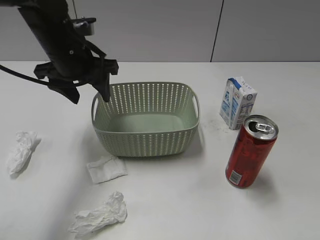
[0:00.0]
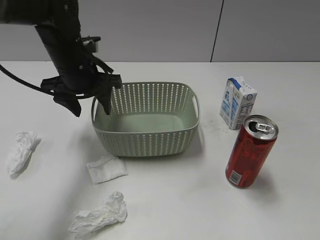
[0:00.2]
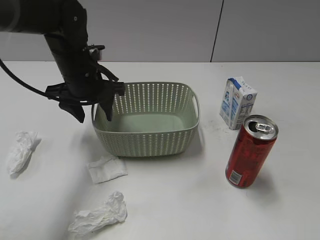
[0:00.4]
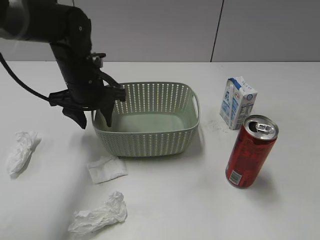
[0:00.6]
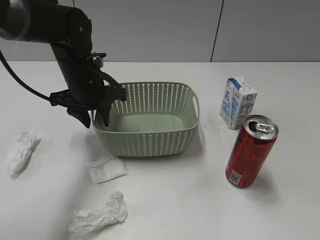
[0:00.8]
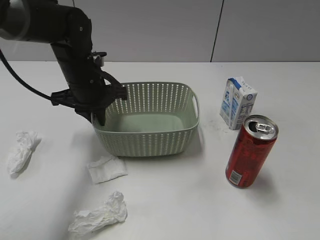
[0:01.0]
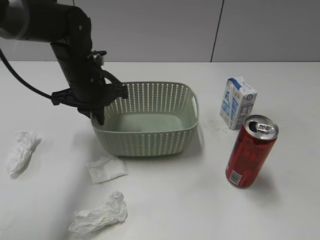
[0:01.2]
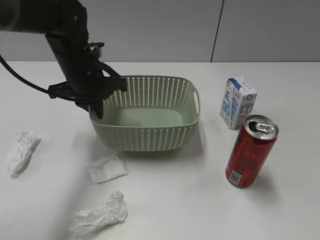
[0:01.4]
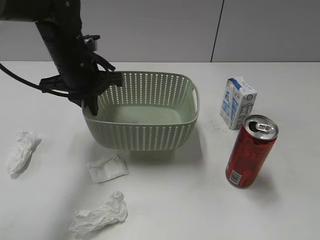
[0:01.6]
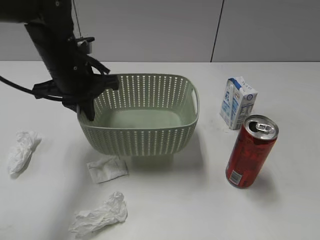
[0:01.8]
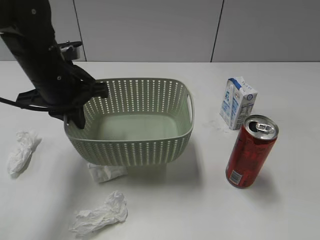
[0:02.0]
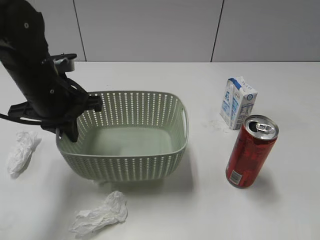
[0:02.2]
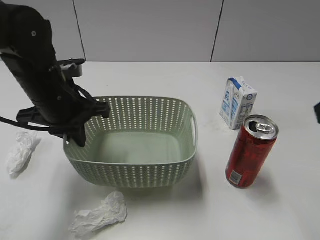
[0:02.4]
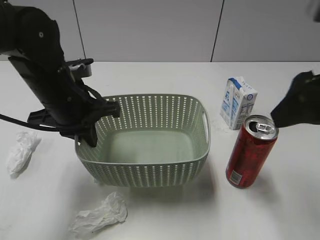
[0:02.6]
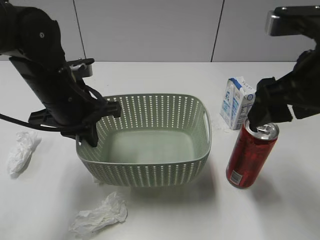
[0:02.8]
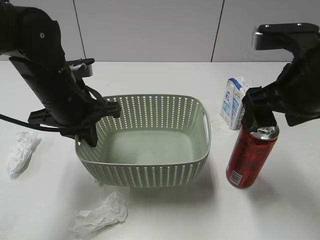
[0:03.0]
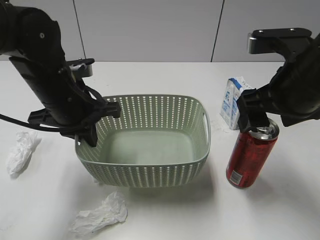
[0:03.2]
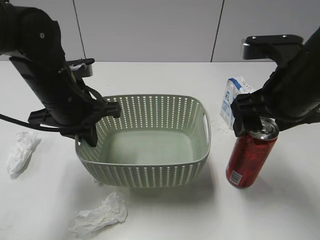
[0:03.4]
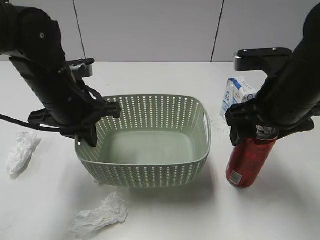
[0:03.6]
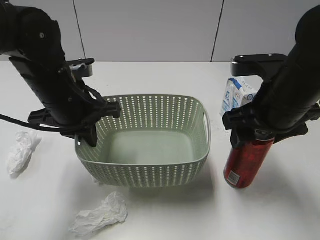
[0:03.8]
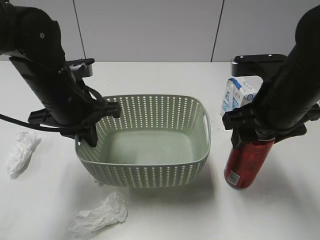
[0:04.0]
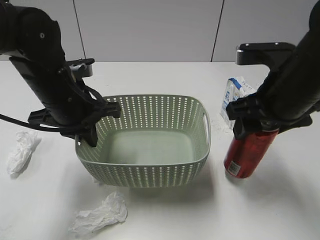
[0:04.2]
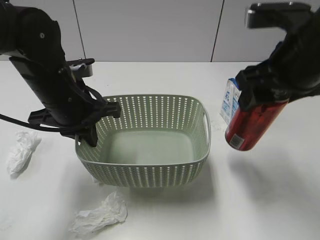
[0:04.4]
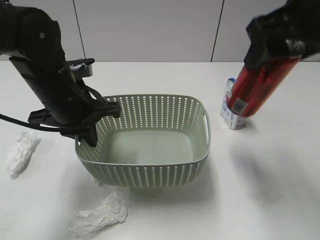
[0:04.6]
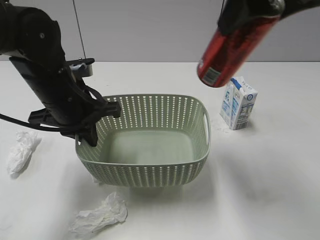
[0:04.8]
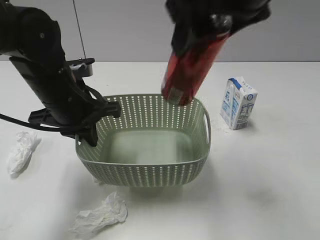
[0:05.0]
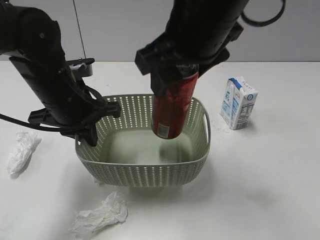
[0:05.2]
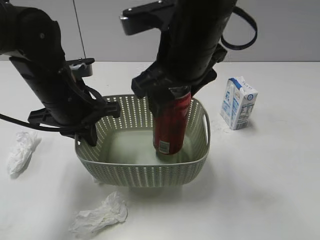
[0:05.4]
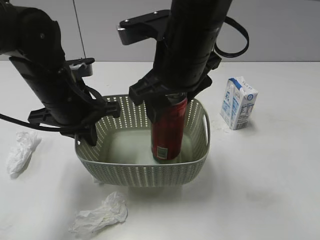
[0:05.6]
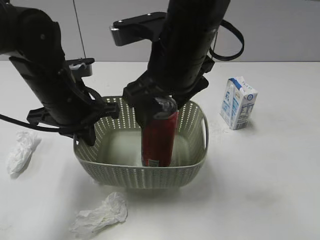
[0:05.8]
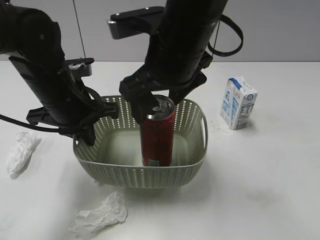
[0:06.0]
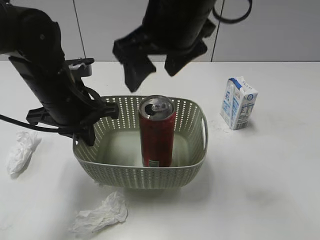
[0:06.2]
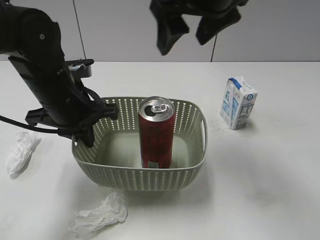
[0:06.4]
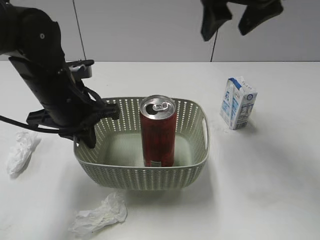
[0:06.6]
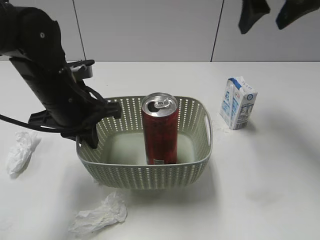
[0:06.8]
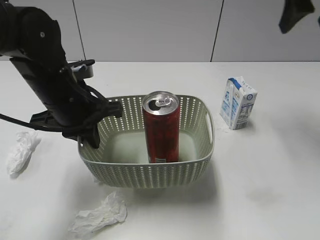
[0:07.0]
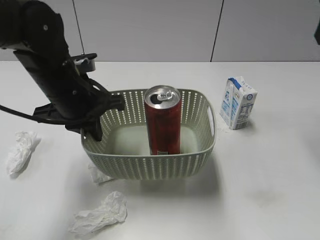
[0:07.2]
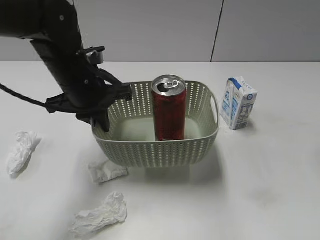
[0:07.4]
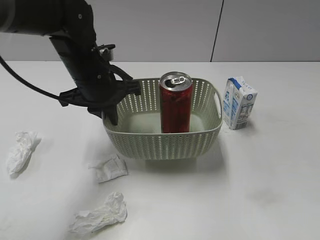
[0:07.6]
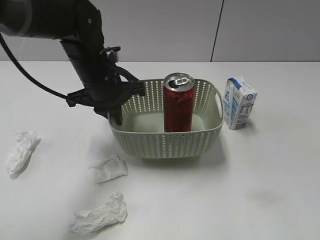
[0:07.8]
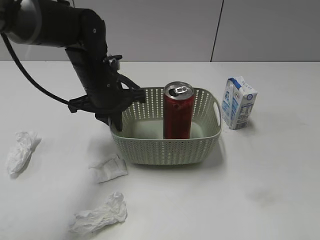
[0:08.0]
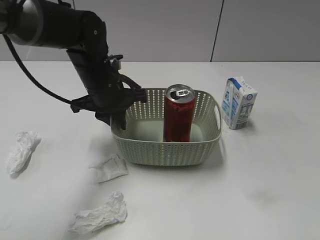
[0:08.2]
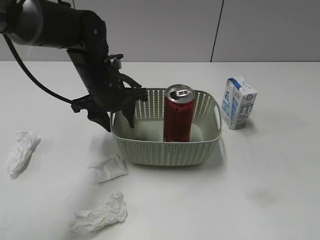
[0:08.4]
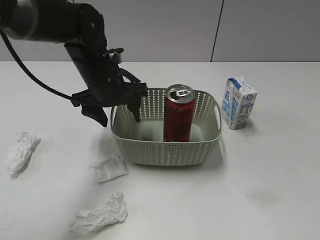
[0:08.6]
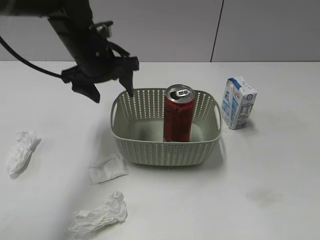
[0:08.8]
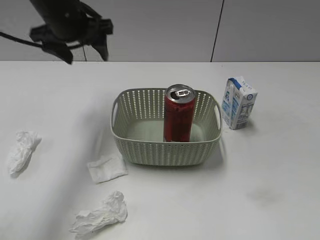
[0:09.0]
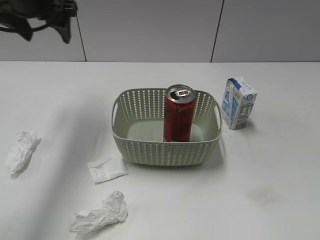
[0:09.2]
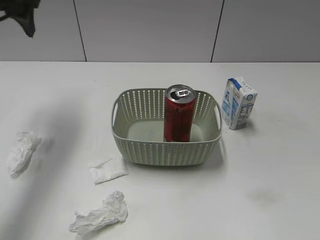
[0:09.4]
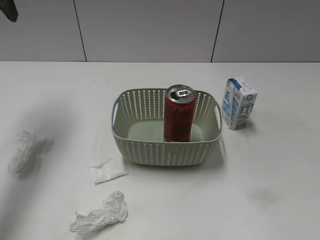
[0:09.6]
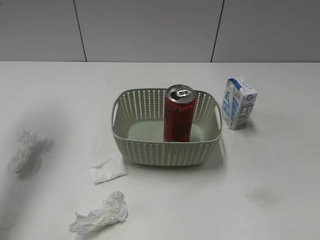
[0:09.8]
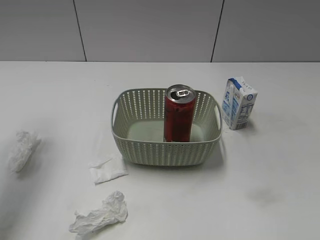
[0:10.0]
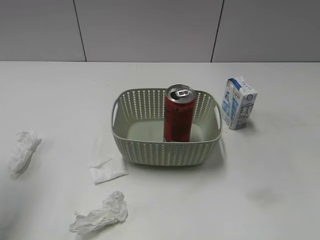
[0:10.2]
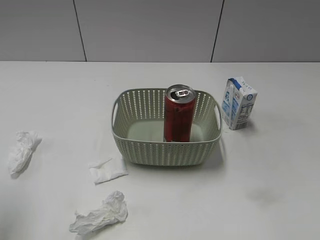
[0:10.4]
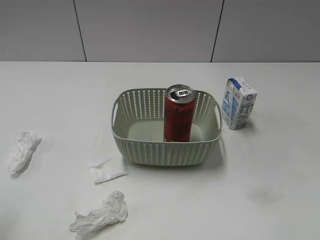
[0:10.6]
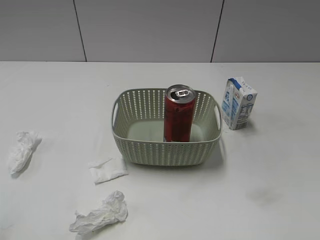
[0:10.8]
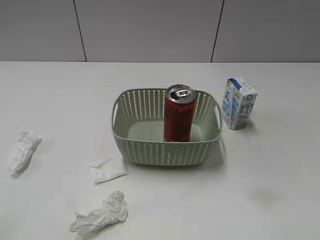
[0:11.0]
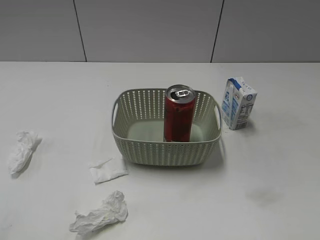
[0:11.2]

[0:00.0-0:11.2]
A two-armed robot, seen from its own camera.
Step, 0:00.0 to 0:01.2: Grasp the basket with left gripper.
Step, 0:01.4 to 0:02.2: Lift the basket with left gripper.
Step, 0:02.4 to 0:03.8: Grasp the cola can with right gripper.
Step, 0:04.0 to 0:06.2: Place the cola can in the basket with right gripper.
Step, 0:06.4 to 0:08.6: Place the basket on the table with left gripper.
0:00.0 to 0:01.6: The left gripper closes.
0:01.6 to 0:03.2: The left gripper goes about 10 cm backward. The right gripper shifts approximately 25 cm forward and to the left, and opens.
0:03.2 to 0:04.8: The right gripper goes some 15 cm upward, and closes up.
0:04.8 to 0:06.4: The right gripper heads forward and to the left, covering approximately 10 cm, and opens.
0:06.4 to 0:08.0: The right gripper is displaced to the right and backward by some 30 cm. Meanwhile the left gripper is displaced forward by roughly 5 cm.
0:08.0 to 0:09.6: The left gripper moves upward and to the left, roughly 30 cm, and opens its fingers; the right gripper moves backward and downward, approximately 10 cm.
0:09.6 to 0:11.2: The left gripper goes some 35 cm backward.

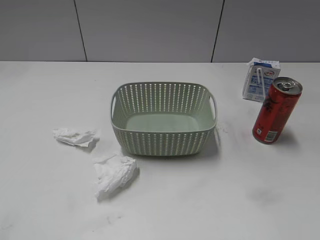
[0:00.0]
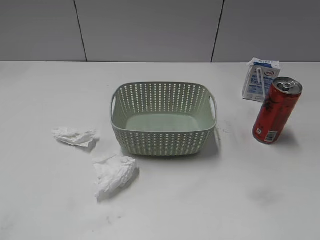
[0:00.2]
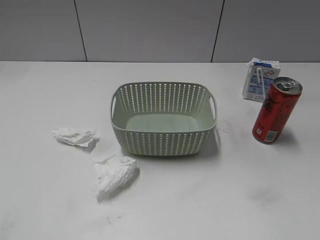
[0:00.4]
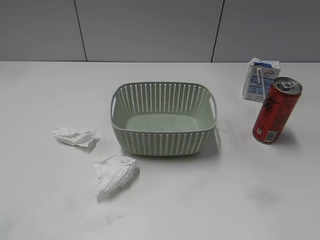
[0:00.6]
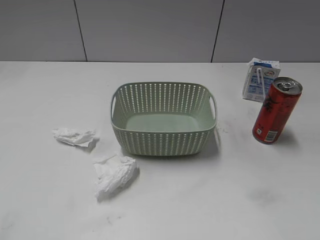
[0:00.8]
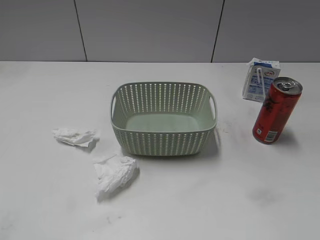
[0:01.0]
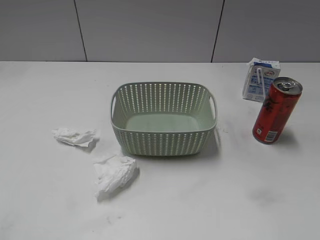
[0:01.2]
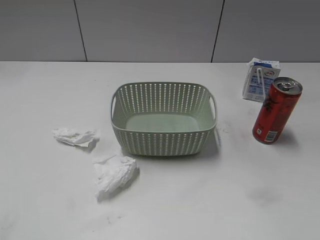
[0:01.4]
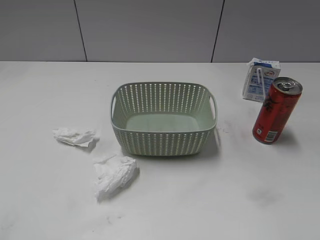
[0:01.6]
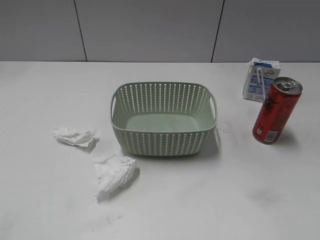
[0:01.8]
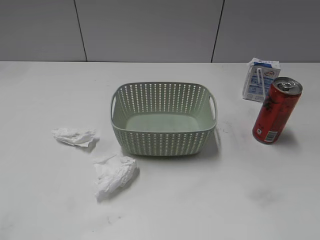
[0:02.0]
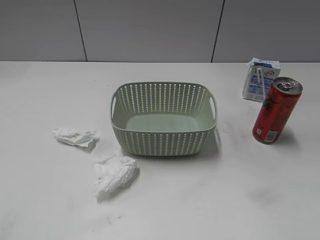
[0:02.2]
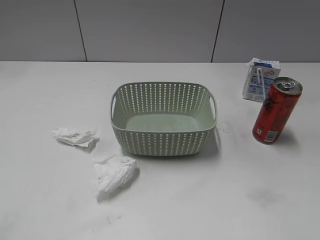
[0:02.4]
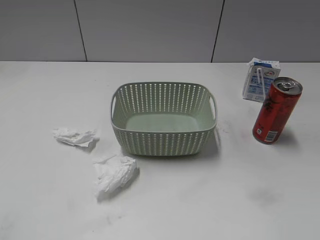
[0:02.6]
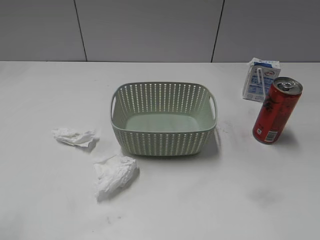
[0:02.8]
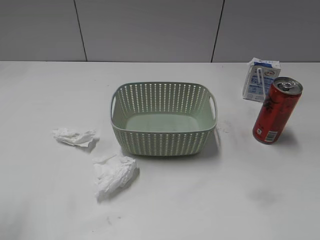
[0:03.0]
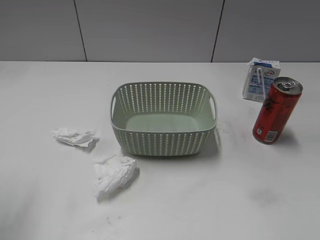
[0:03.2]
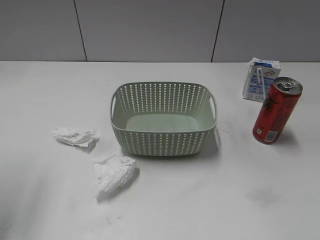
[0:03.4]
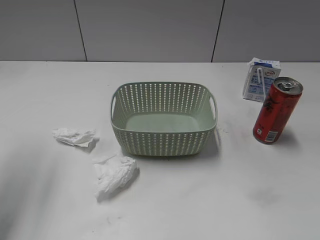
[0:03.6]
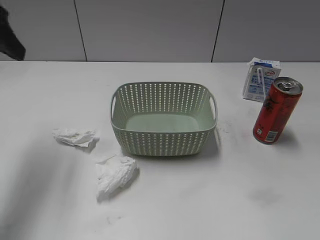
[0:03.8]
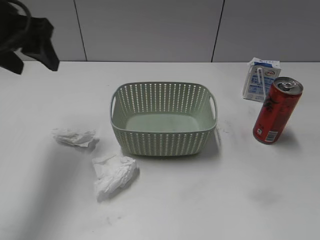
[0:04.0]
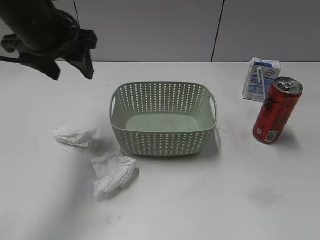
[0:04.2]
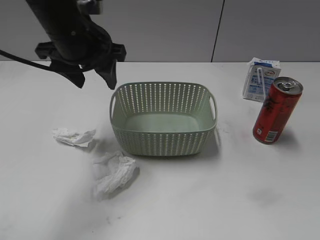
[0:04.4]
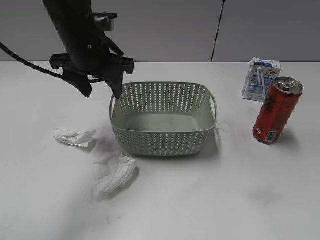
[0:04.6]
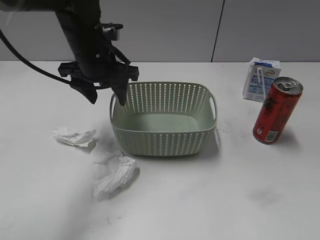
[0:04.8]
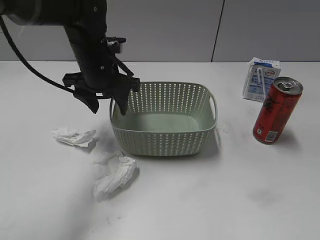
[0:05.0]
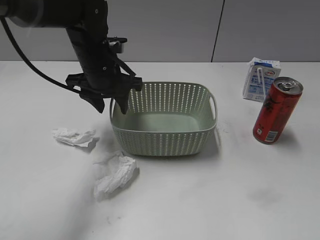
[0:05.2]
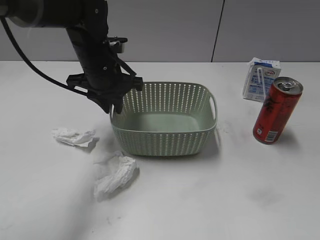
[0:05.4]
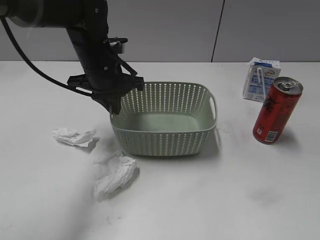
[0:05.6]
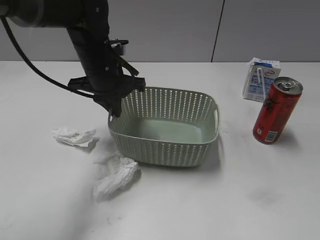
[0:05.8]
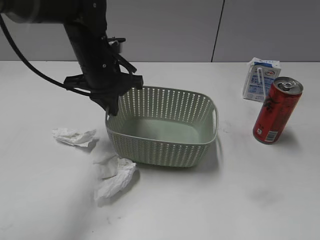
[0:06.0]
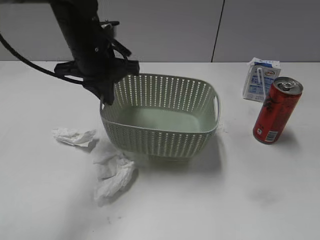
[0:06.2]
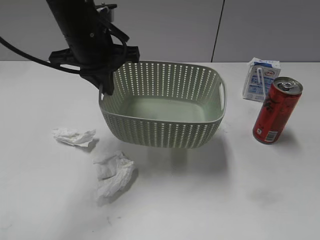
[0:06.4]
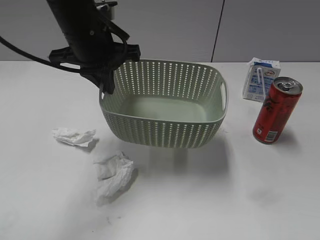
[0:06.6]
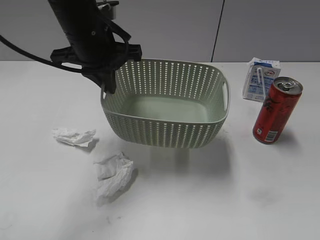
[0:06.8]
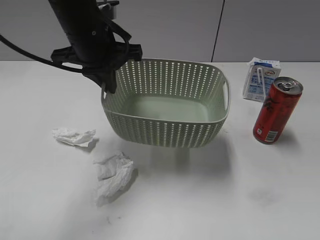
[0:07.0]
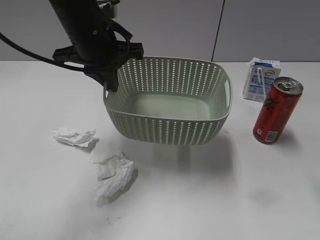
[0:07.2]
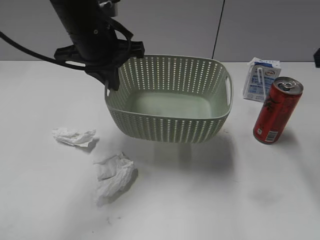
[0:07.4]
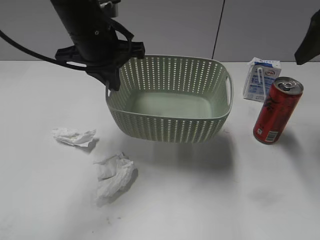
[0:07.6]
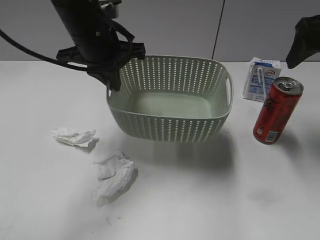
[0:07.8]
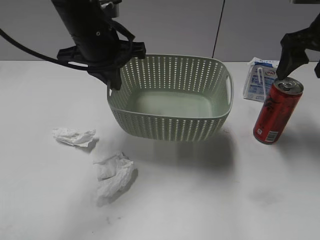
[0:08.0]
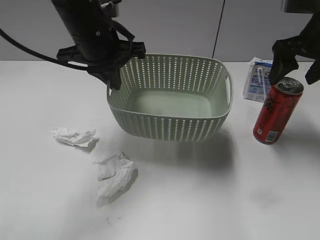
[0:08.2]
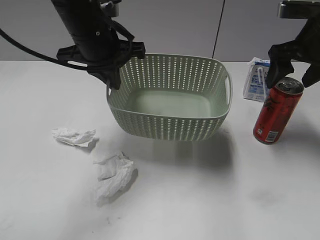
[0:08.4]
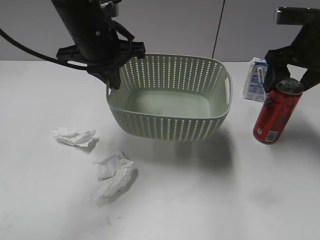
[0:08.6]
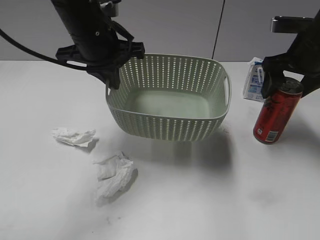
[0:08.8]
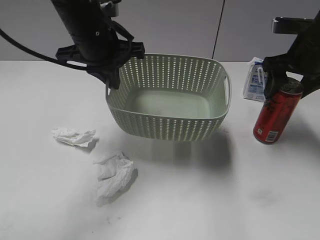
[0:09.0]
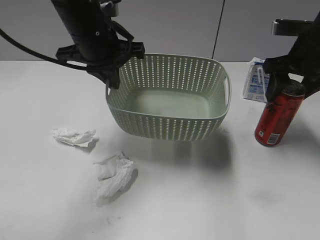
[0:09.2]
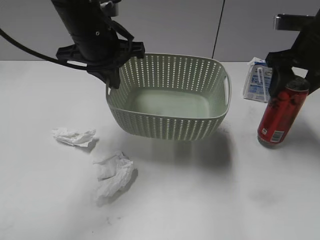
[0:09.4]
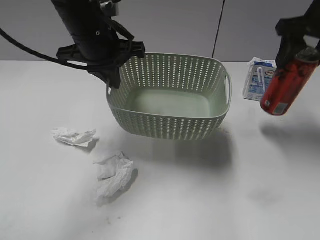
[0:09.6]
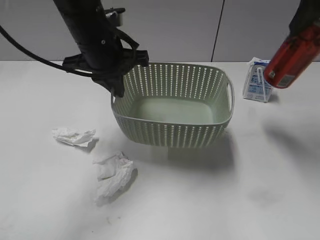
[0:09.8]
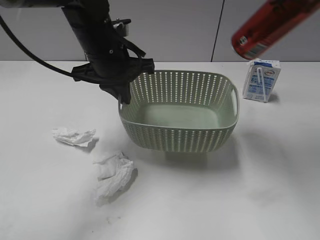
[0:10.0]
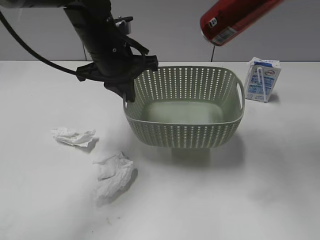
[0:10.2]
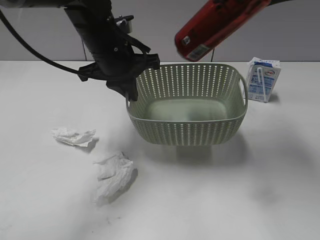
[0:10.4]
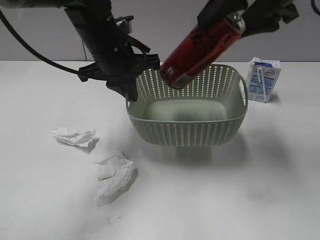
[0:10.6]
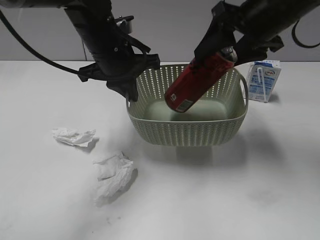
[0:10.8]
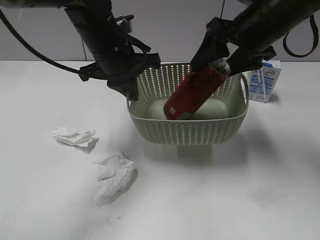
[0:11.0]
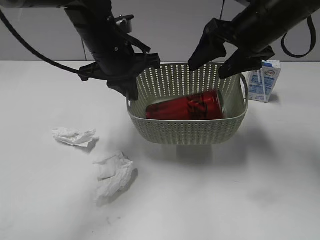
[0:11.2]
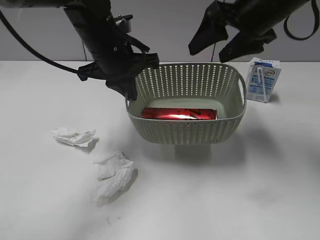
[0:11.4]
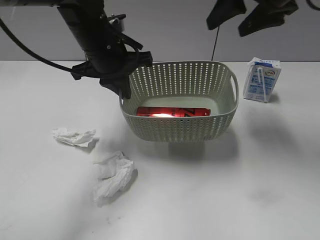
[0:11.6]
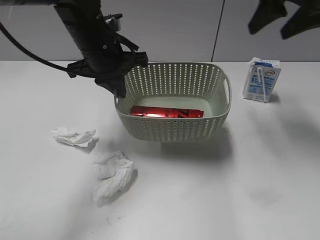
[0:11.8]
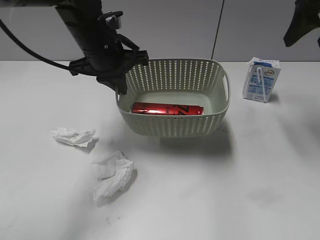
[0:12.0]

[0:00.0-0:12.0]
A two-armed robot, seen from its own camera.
Step, 0:03.8 to 0:05.6: Grasp the basket with left gripper.
Step, 0:05.8 to 0:07.2: Lift the basket with left gripper.
Step, 0:07.4 to 0:09.2: Grasp the cola can with right gripper.
Step, 0:09.4 to 0:11.2: Place the cola can in the basket with right gripper.
0:03.0 to 0:04.4: The left gripper goes approximately 30 cm forward and to the right.
0:04.4 to 0:06.0: The left gripper heads downward, covering some 5 cm, and closes up.
0:06.0 to 0:07.6: The right gripper heads forward, covering roughly 30 cm, and opens, while the left gripper shifts approximately 5 cm upward.
0:07.6 to 0:09.0: The right gripper travels downward and forward by roughly 10 cm, and closes up.
0:09.0 to 0:10.4: The right gripper shifts about 20 cm upward and to the left.
0:10.4 to 0:12.0: The right gripper is displaced to the right, forward and downward by about 15 cm, and opens its fingers.
